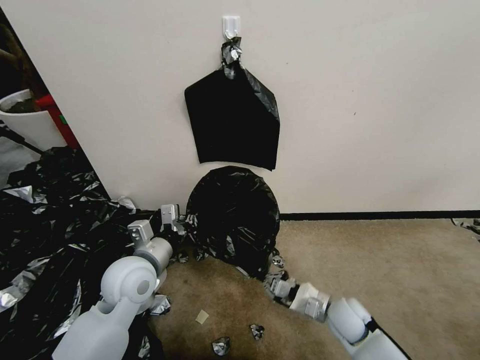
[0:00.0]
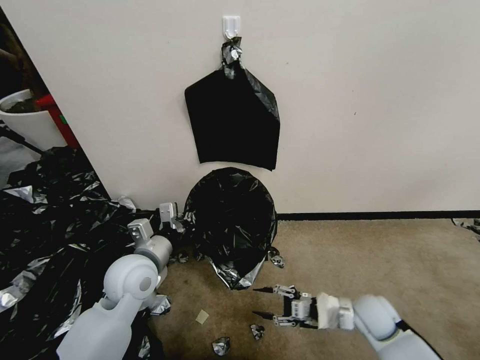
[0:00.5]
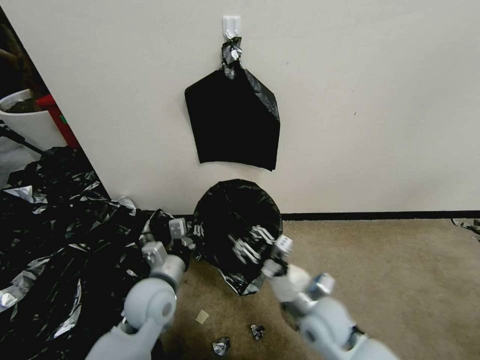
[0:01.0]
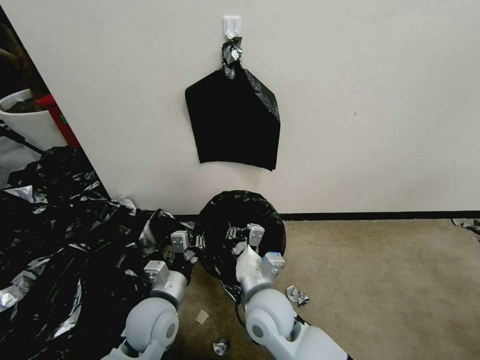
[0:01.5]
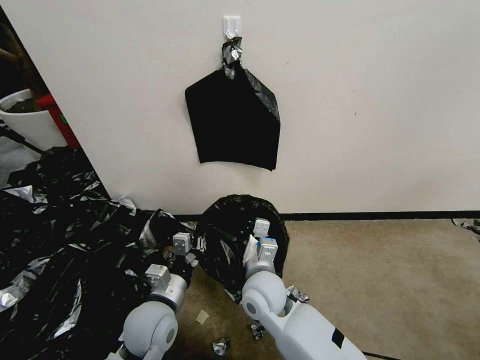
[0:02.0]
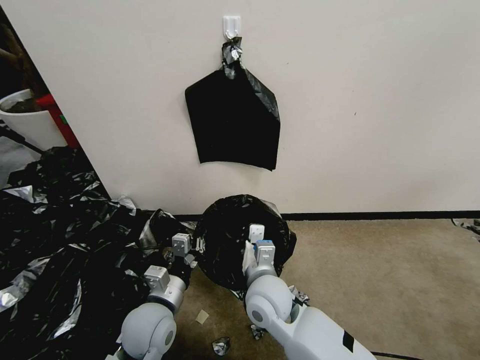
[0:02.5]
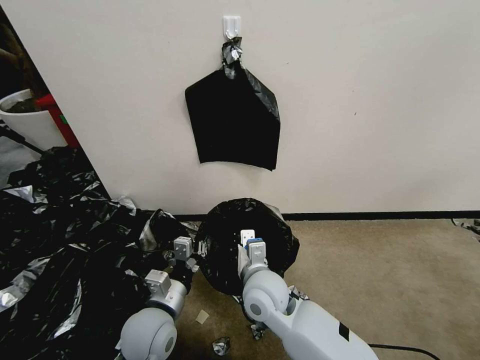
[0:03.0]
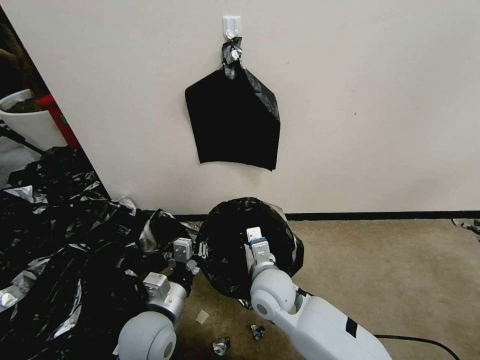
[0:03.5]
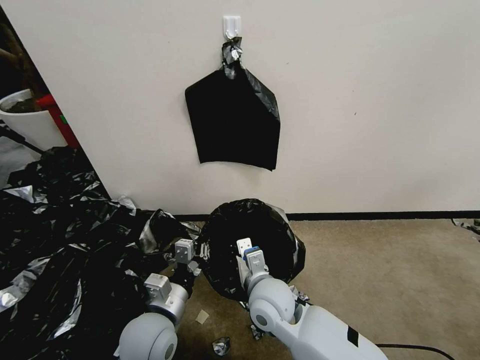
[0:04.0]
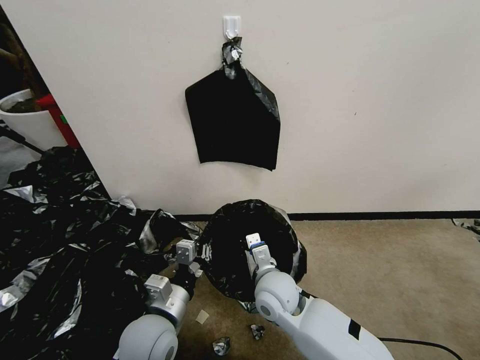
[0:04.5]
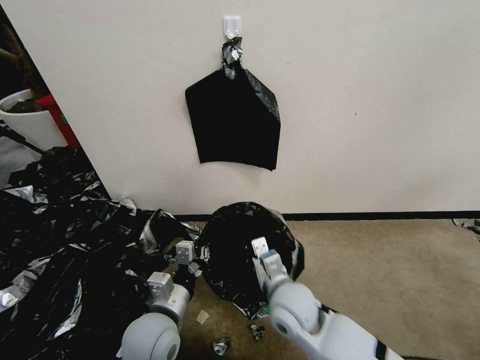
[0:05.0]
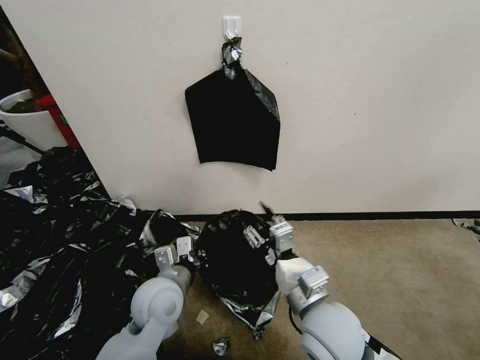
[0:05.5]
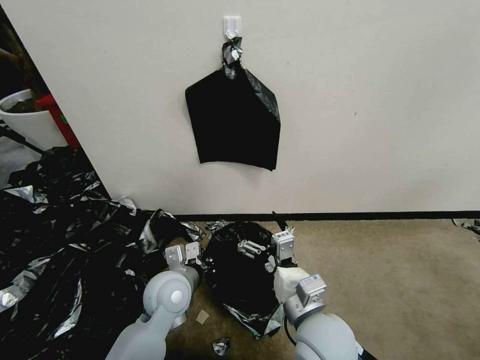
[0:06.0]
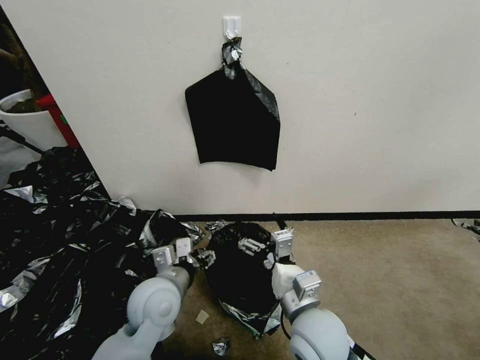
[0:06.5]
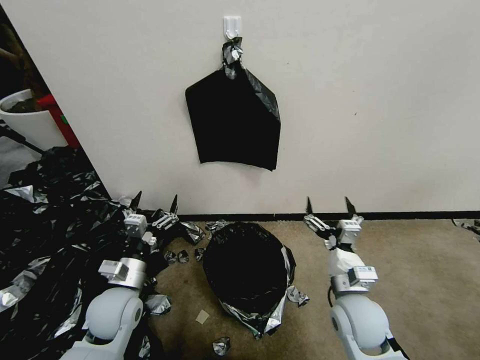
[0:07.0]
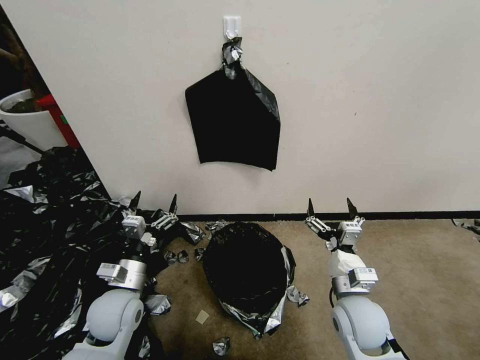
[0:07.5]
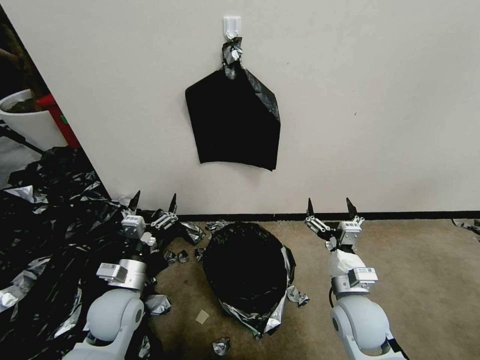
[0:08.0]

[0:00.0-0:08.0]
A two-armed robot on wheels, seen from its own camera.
Task of the whole recording: Place a trash bag onto the trash bin.
0:00.0 to 0:02.0: The left gripper heads downward and backward, covering some 10 cm. The right gripper heads to the left and upward, covering roughly 25 cm, and opens and closes again.
0:04.0 to 0:06.0: The right gripper is displaced backward, to the right and upward by approximately 10 cm, and opens up; the left gripper moves forward, about 10 cm.
0:06.0 to 0:08.0: The right gripper goes some 15 cm to the right, downward and forward. The left gripper travels to the left by some 10 cm, and opens up.
